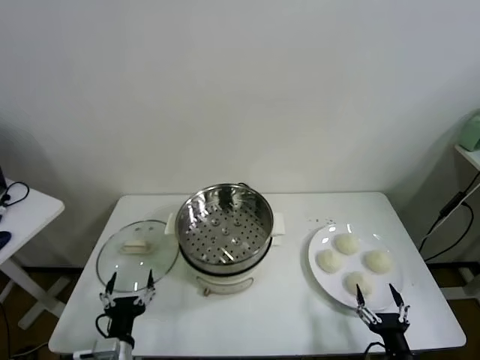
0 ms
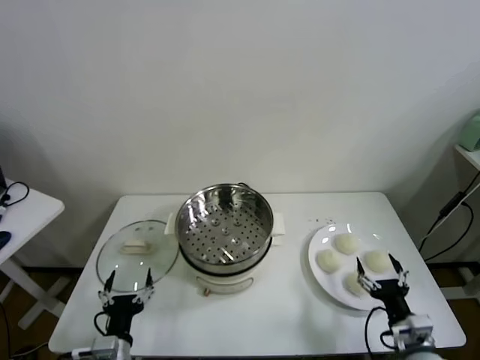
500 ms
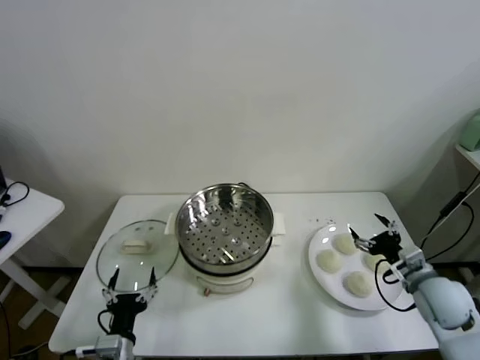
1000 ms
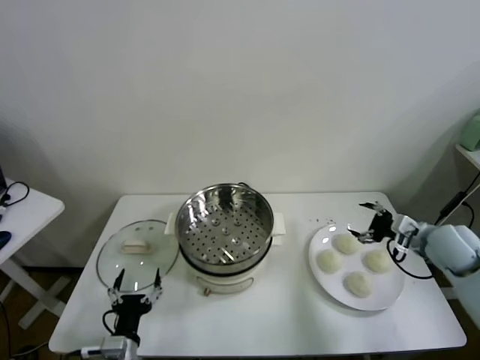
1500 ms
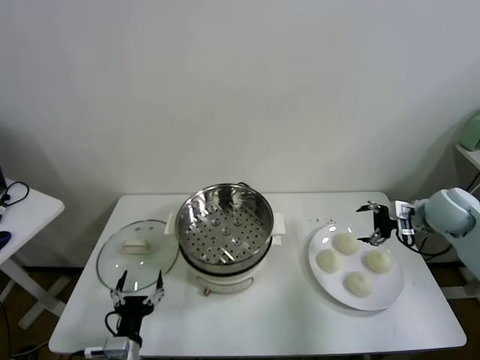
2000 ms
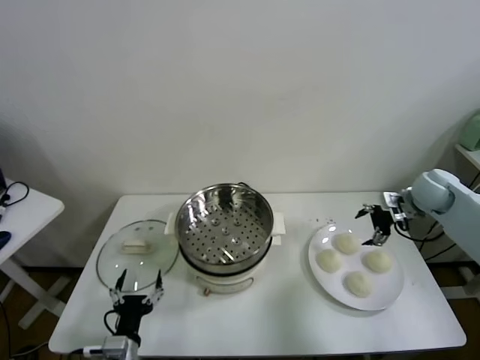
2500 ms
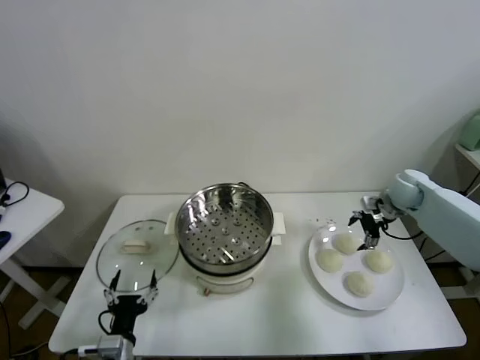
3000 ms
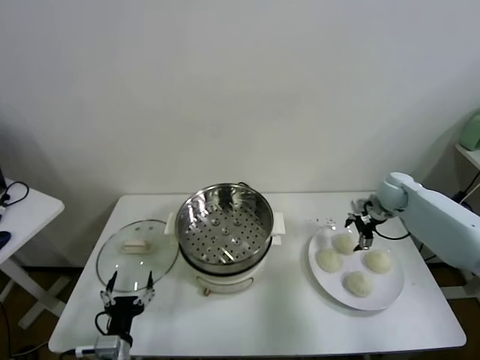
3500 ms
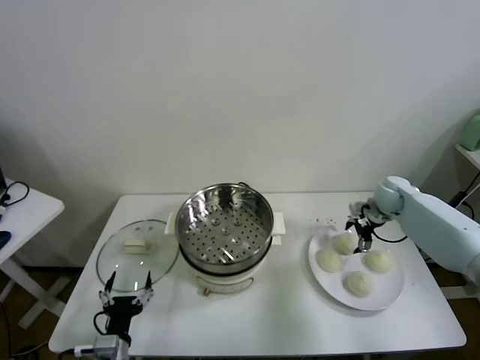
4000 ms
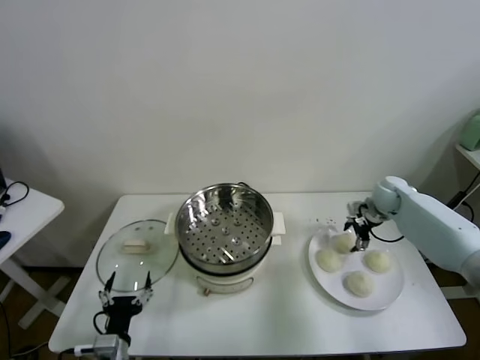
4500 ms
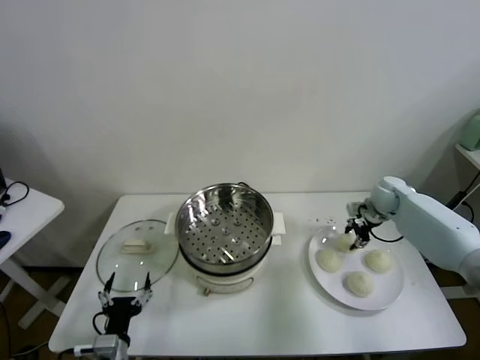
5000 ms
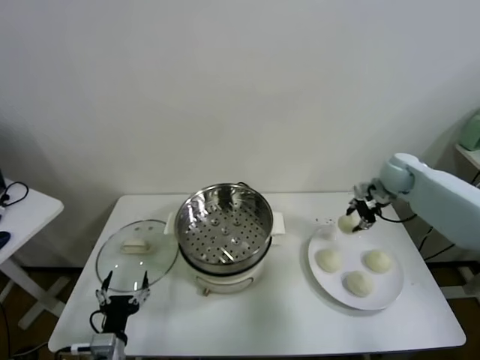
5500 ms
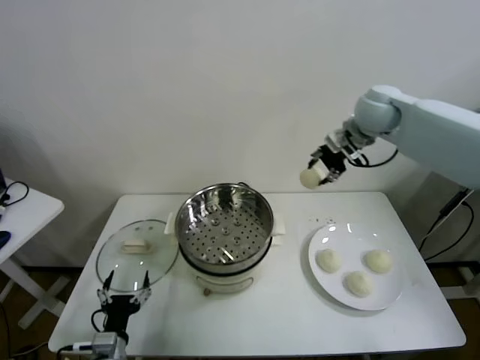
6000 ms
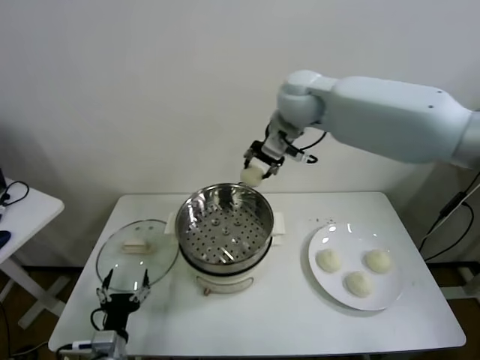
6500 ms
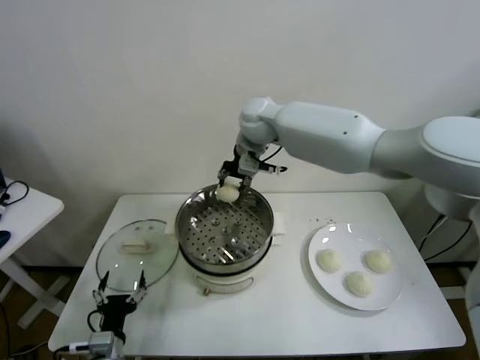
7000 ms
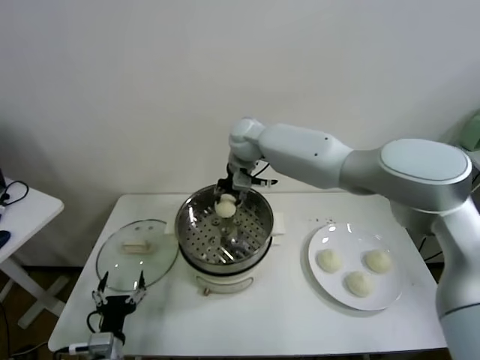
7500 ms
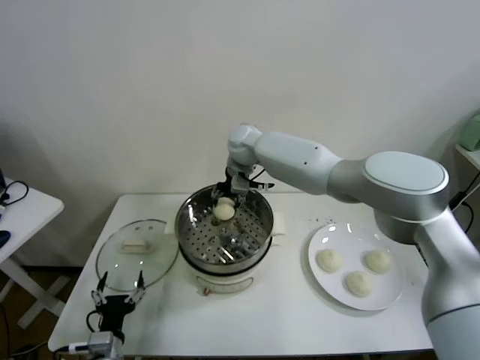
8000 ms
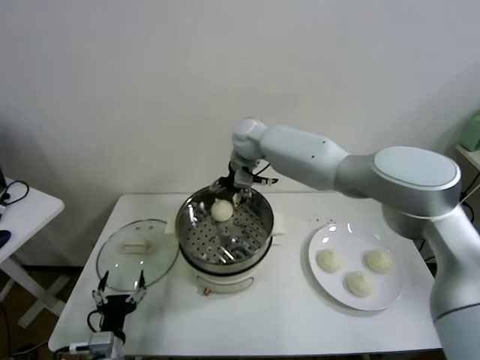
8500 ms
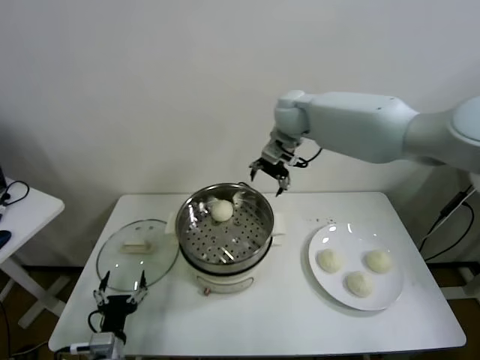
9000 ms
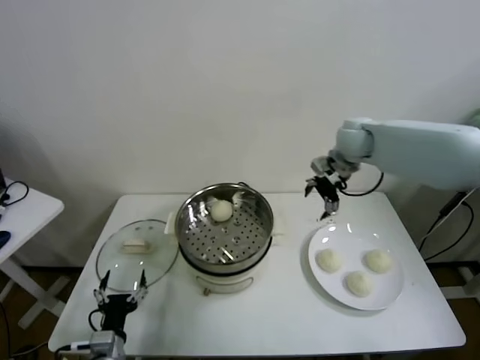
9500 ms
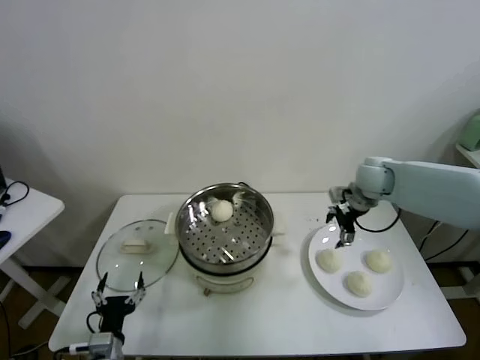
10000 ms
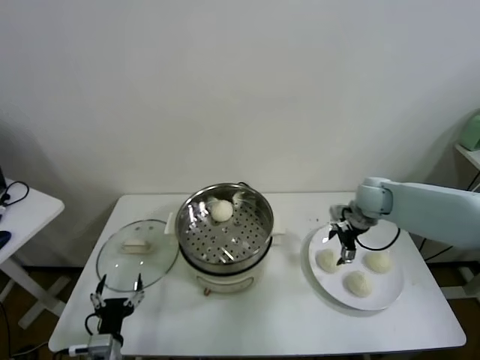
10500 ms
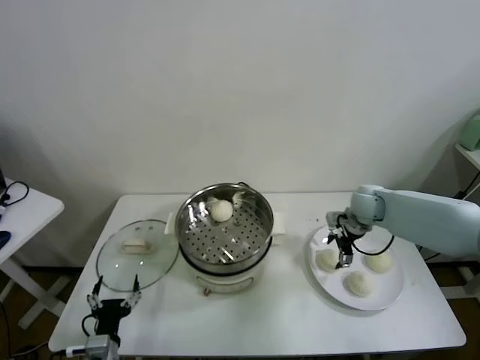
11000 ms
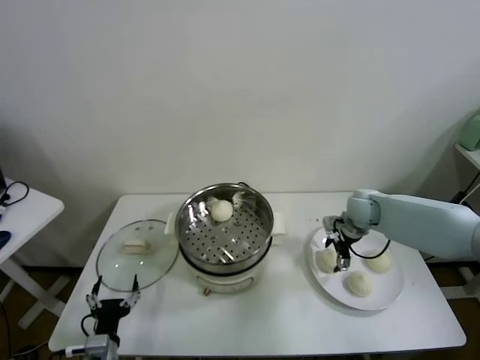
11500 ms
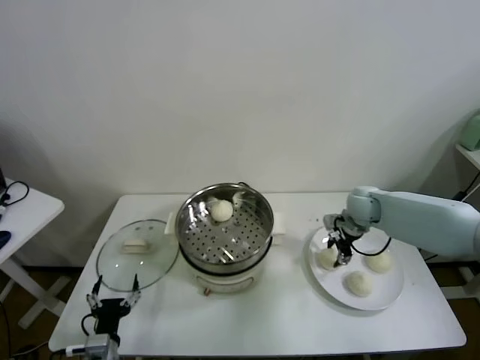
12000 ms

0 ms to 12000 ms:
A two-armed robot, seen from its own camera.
Task of the whole recording: take steamed baozi put them in steamer.
Step, 0 ms to 5000 ms: Grasp the baozi in the plate with right gripper.
Step, 5500 ms to 8000 ms: Place the baozi on the steamer with right gripper.
Step, 8500 ms to 11500 ms: Grasp the baozi in the plate with right gripper.
2000 ms to 4000 ms: The right gripper travels forward and downward by approximately 10 cm.
4000 ms to 6000 ms: The right gripper goes approximately 30 cm upward and to the left, and closes up.
6000 ms to 8000 ms: The right gripper shifts approximately 25 cm to the left and downward, and opens its fingers.
8000 ms to 10000 ms: The right gripper heads to the right, covering roughly 30 cm, and opens.
10000 ms to 12000 ms: The right gripper shifts approximately 5 cm downward, and closes up.

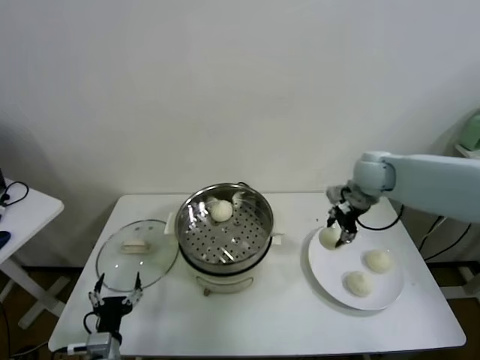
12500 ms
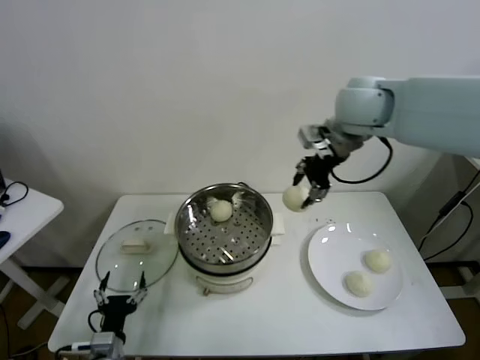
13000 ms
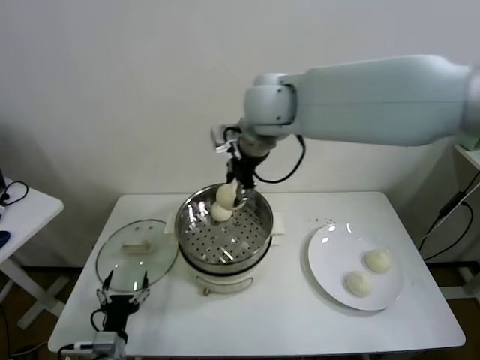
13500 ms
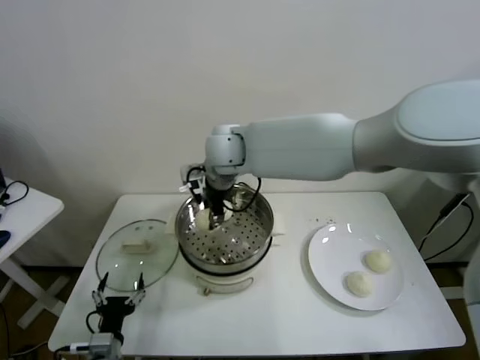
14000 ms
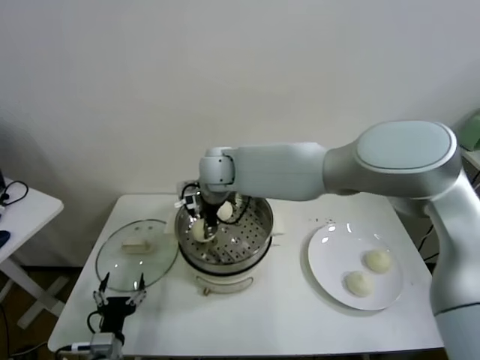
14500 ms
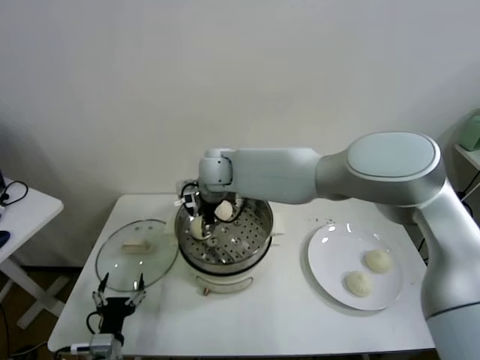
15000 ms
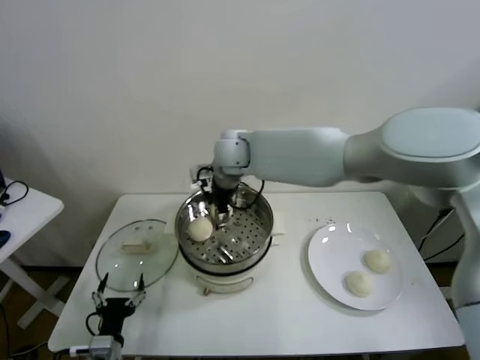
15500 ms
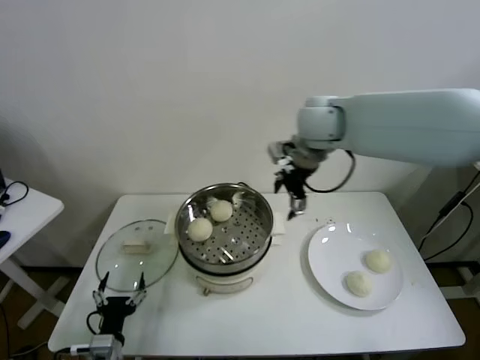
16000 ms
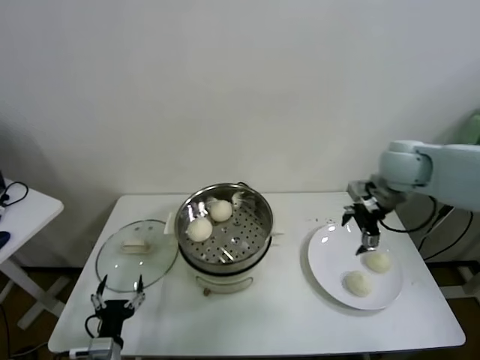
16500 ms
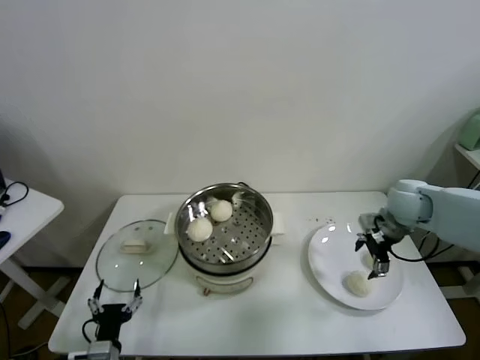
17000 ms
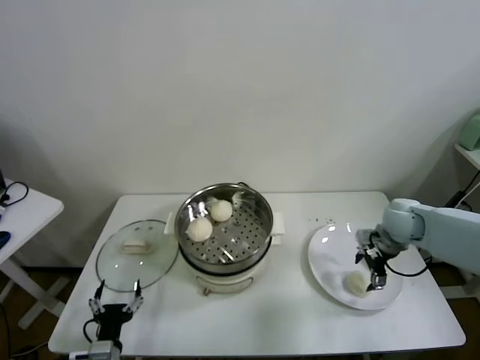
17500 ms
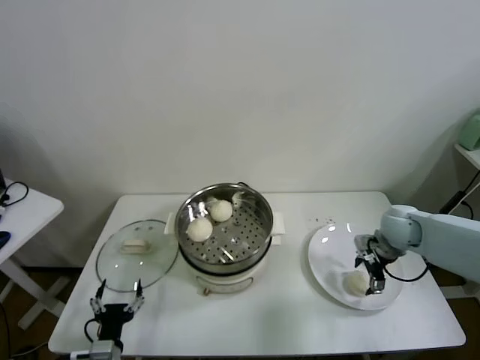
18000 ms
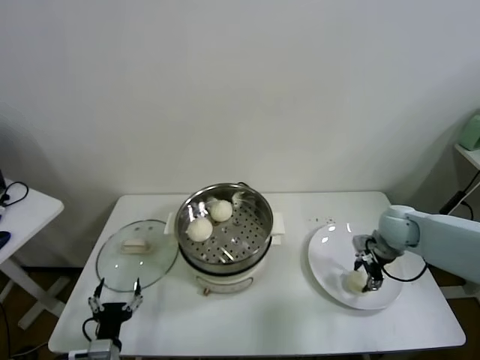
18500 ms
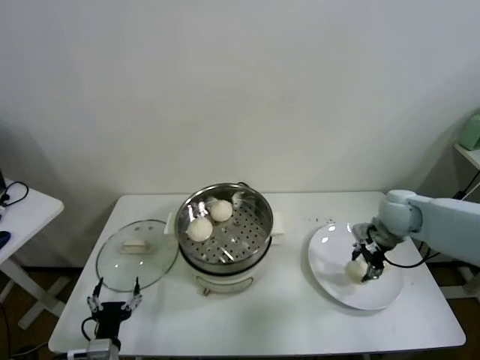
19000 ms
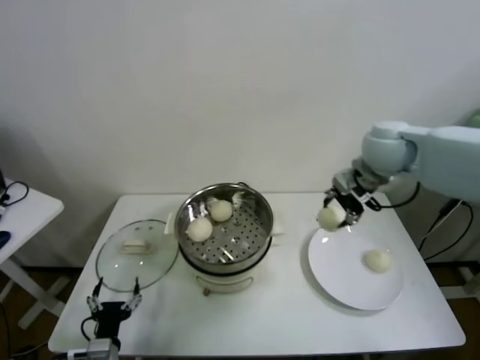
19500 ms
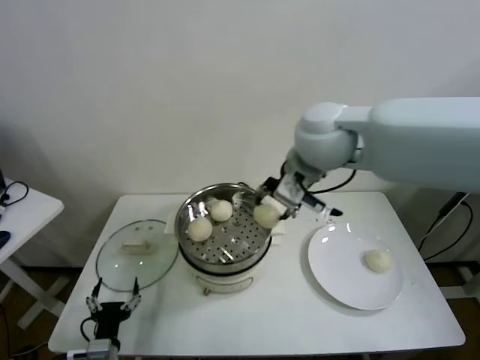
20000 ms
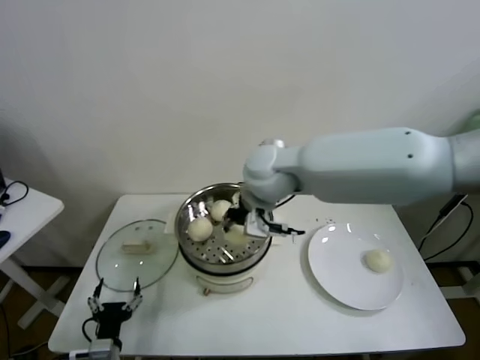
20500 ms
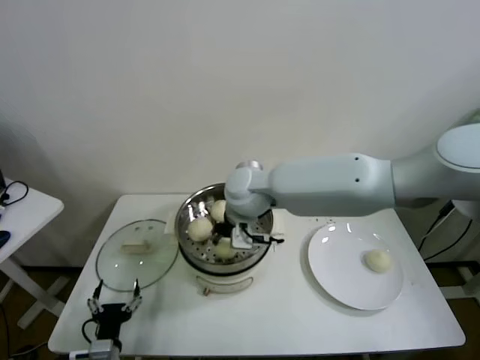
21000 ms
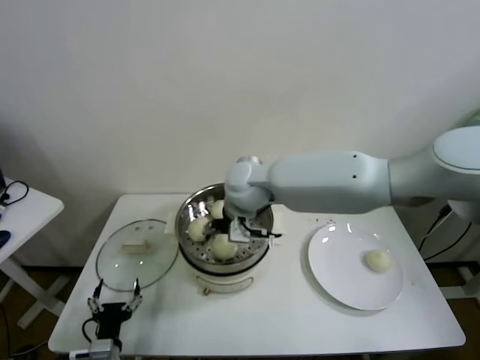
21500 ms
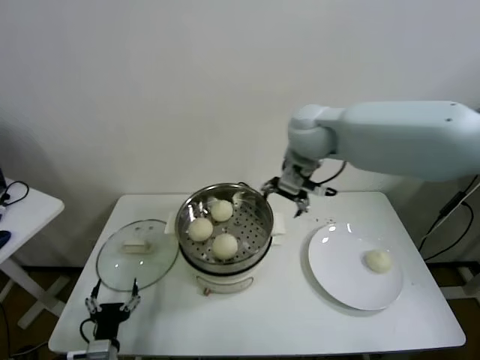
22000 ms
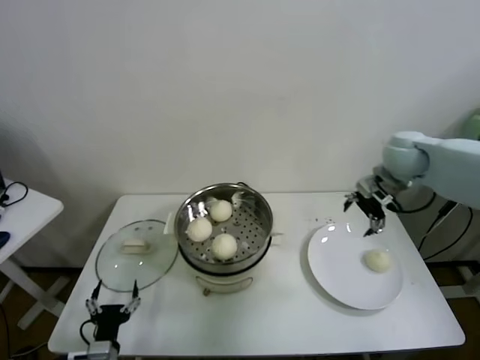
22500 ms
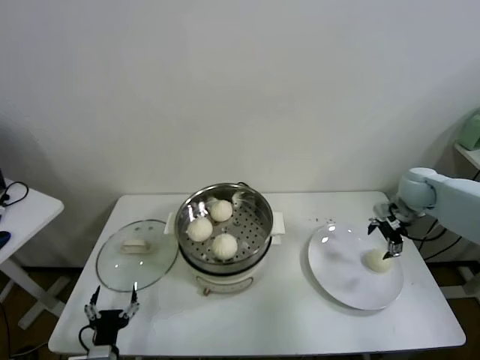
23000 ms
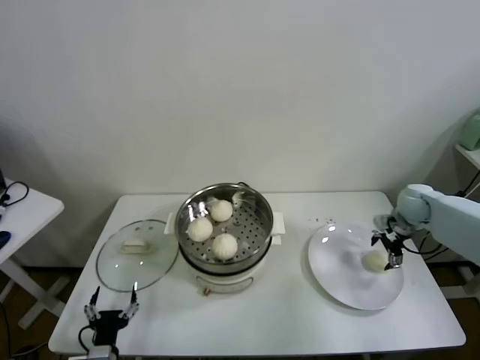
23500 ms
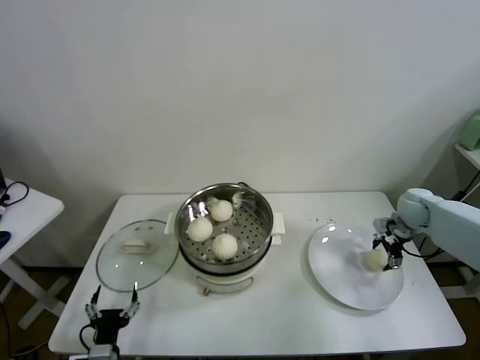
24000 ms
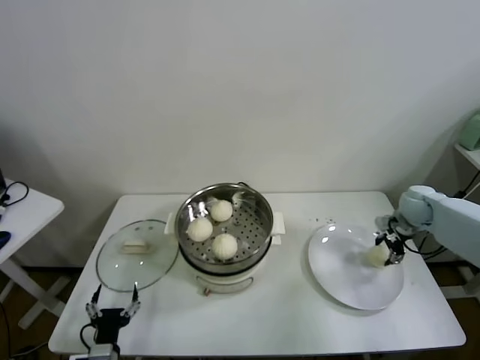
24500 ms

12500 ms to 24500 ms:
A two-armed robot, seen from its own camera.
Task of the whole recording: take steamed baozi put them in steamer.
Step, 12500 ms to 15000 ms: Place the baozi on the steamer with right gripper.
Step, 15500 ms to 18500 ms: Grasp the baozi in the plate with right gripper.
Step, 19000 ms to 21000 ms: Place the baozi on the steamer with right gripper.
Step, 22000 ms to 24000 ms: Grasp the baozi in the plate with right gripper.
12500 ms to 14500 ms: The right gripper travels to the left by approximately 35 cm.
14500 ms to 16500 ms: The right gripper shifts approximately 40 cm to the right, and opens up.
16500 ms to 18500 ms: The right gripper shifts about 15 cm downward, and closes its fingers.
18500 ms to 20500 ms: The right gripper goes some 40 cm to the left and upward.
20500 ms to 22500 ms: The right gripper heads to the right, covering roughly 30 cm, and opens up.
22500 ms to 24500 ms: The right gripper moves downward and to the right, roughly 20 cm, and closes.

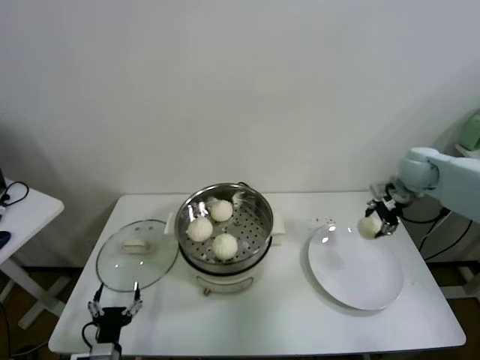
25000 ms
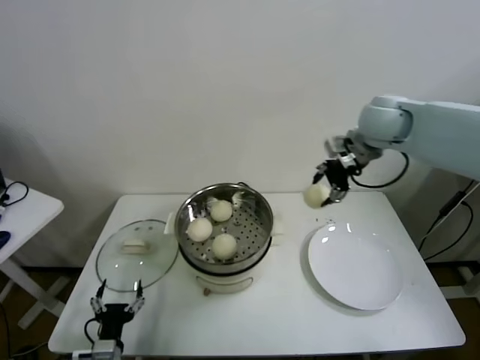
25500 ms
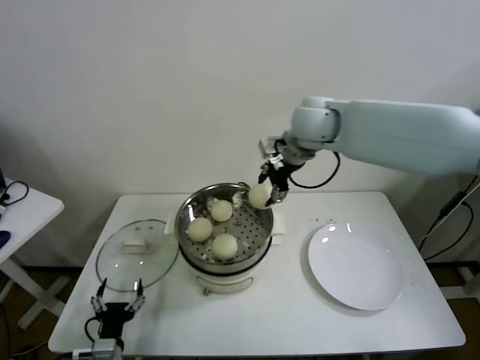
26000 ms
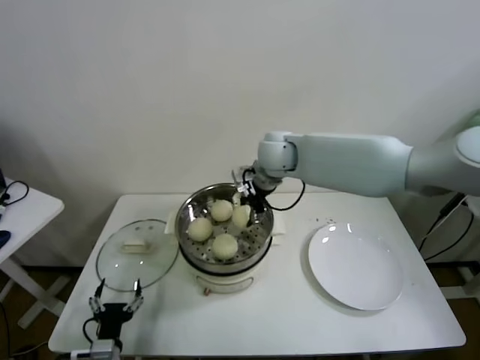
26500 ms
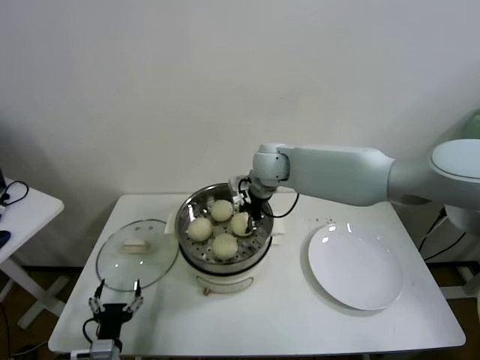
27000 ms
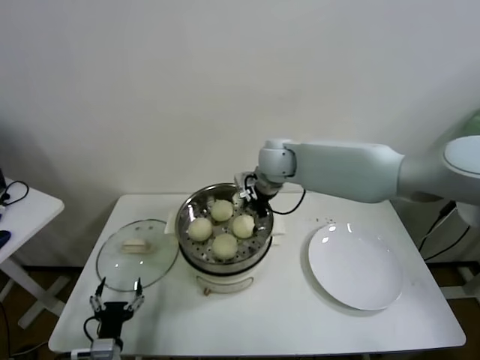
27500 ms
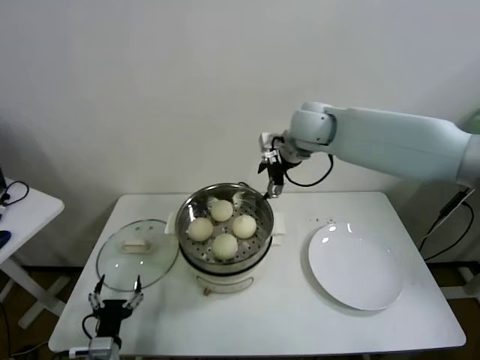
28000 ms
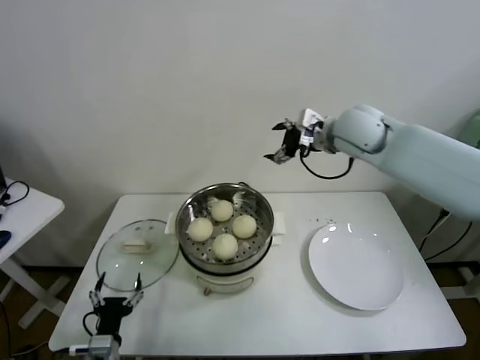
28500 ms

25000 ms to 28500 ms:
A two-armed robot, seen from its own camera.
Task of the whole recording: take steamed baozi put them in steamer.
Step, 25000 ms to 27000 ms: Place the baozi on the steamer with right gripper.
25000 ms to 27000 ms: The right gripper heads to the left, covering approximately 35 cm.
27000 ms to 28500 ms: The right gripper shifts about 20 cm to the right and upward, and opens.
